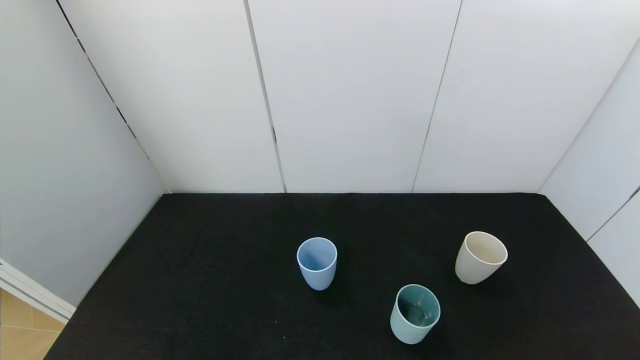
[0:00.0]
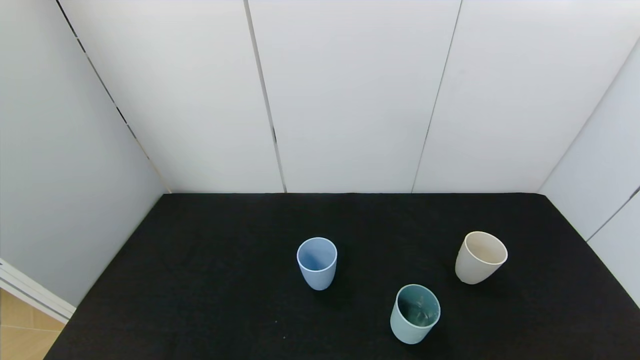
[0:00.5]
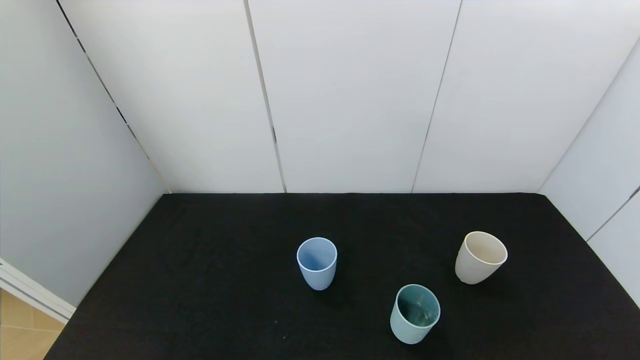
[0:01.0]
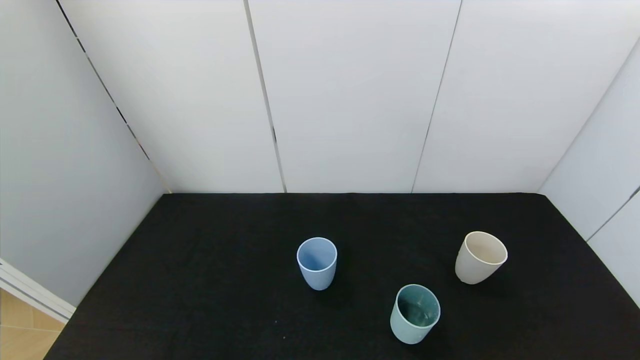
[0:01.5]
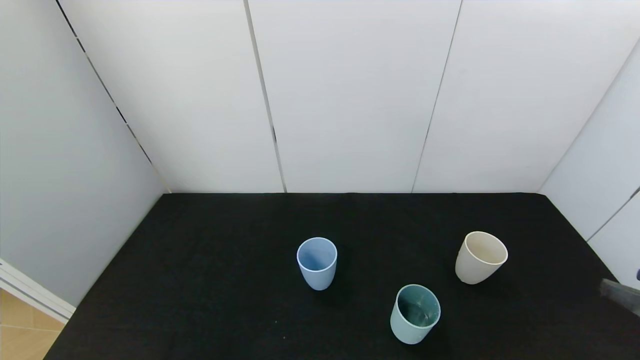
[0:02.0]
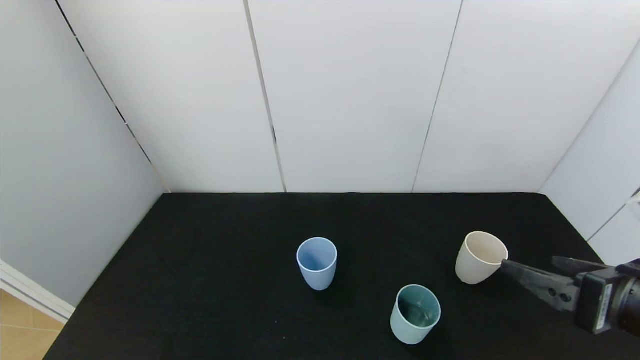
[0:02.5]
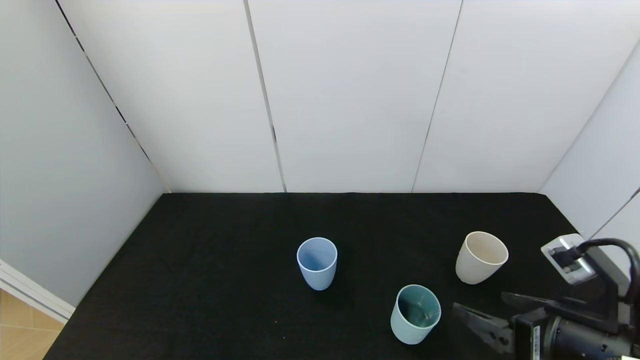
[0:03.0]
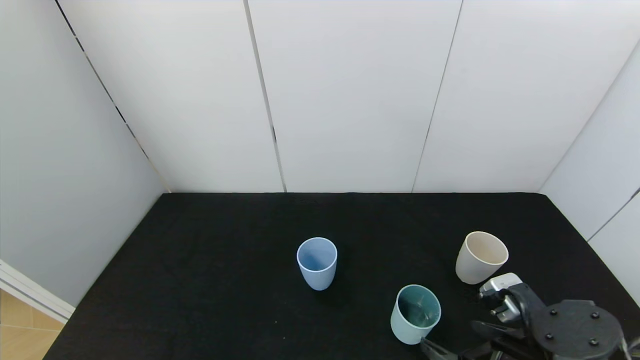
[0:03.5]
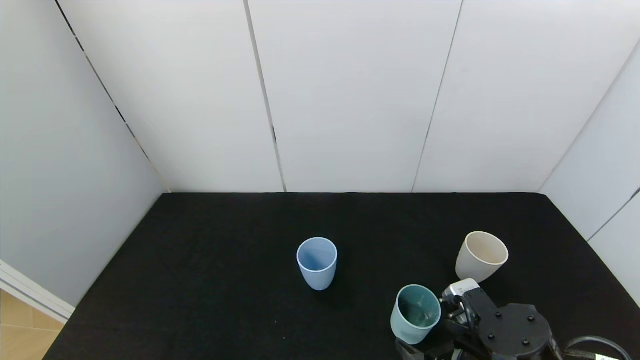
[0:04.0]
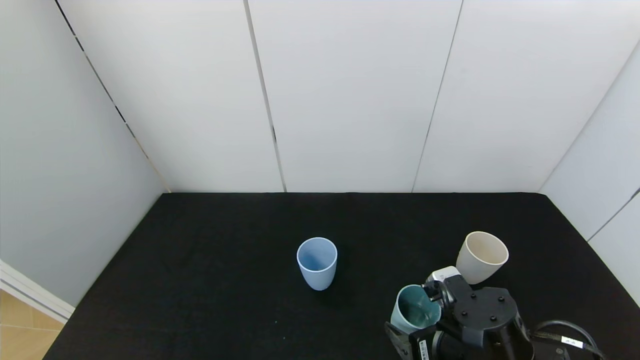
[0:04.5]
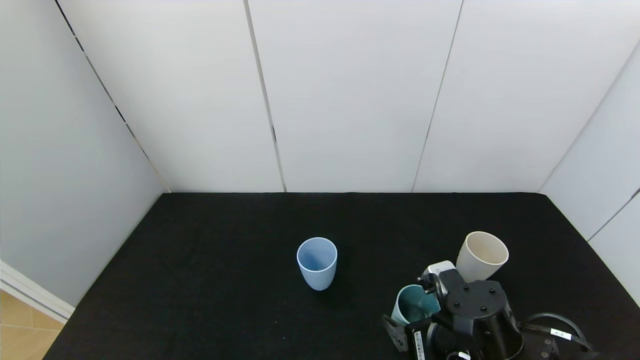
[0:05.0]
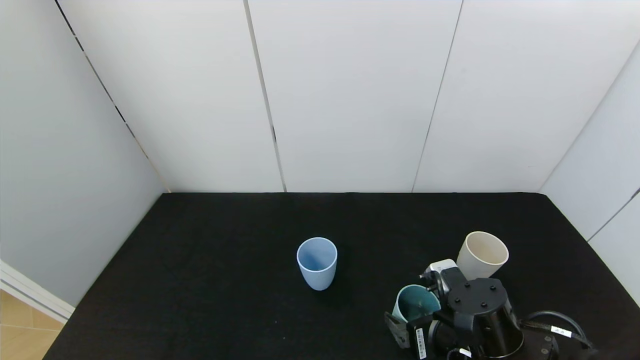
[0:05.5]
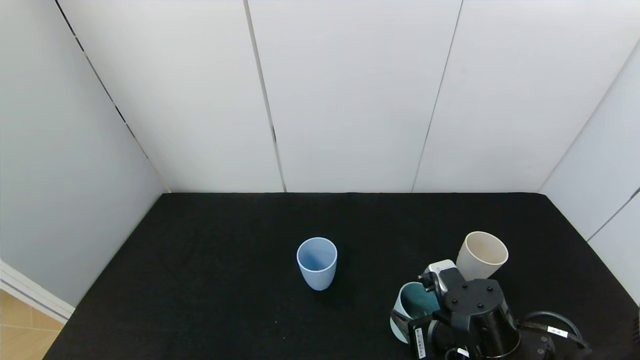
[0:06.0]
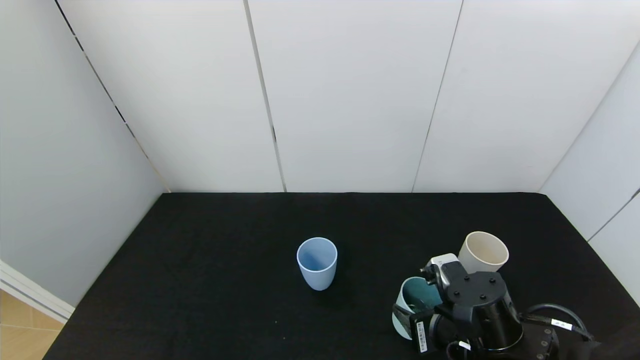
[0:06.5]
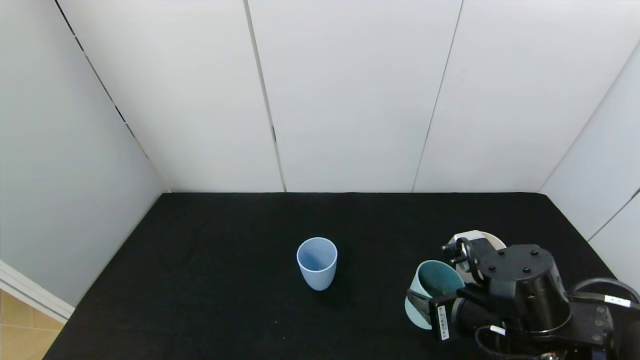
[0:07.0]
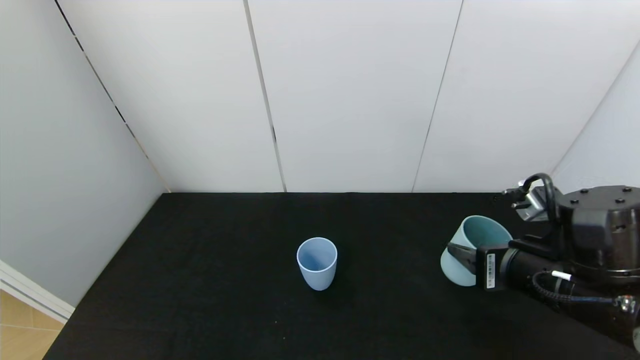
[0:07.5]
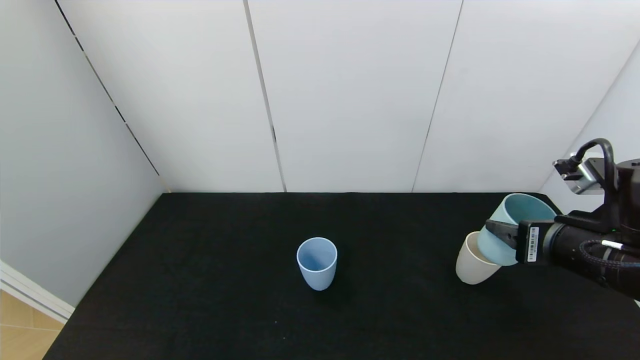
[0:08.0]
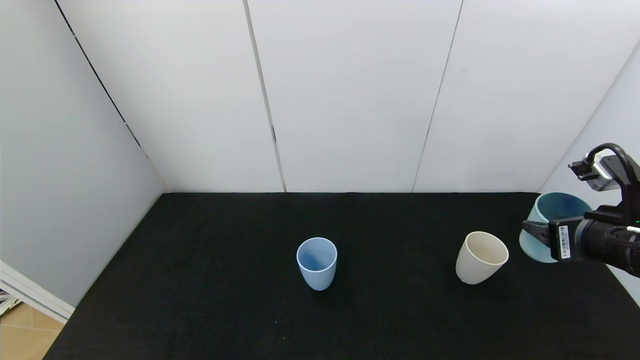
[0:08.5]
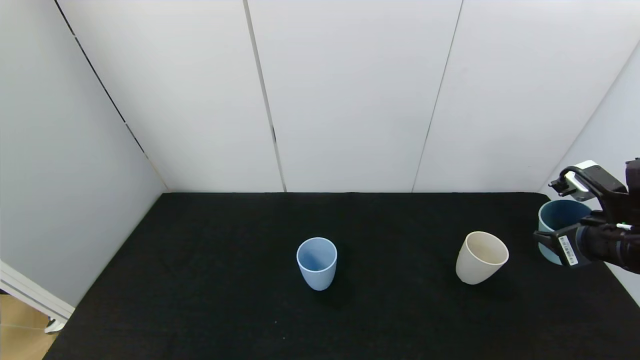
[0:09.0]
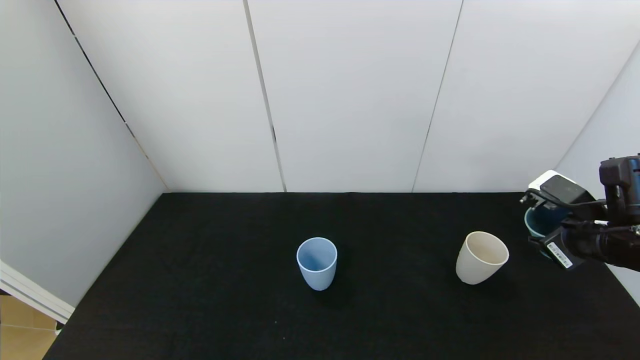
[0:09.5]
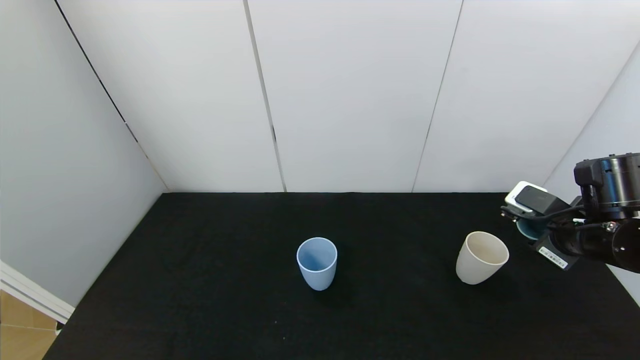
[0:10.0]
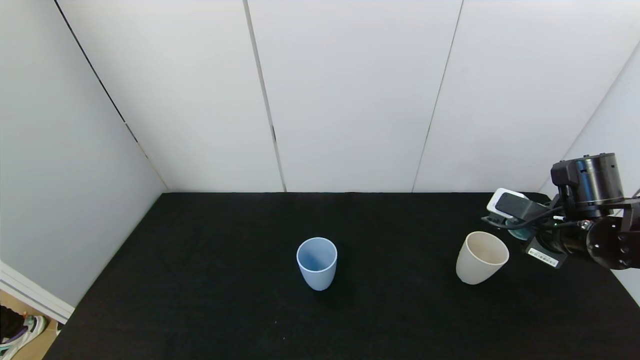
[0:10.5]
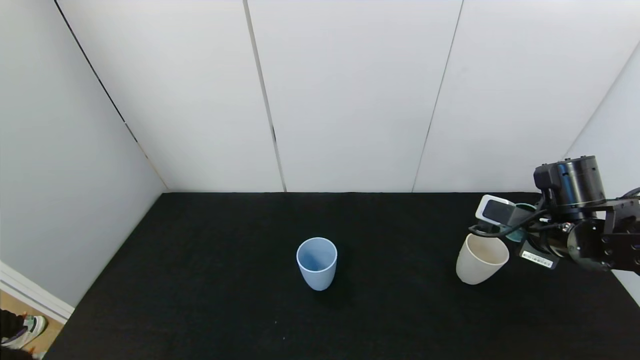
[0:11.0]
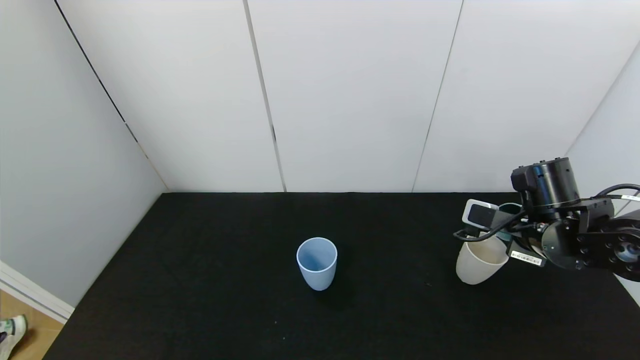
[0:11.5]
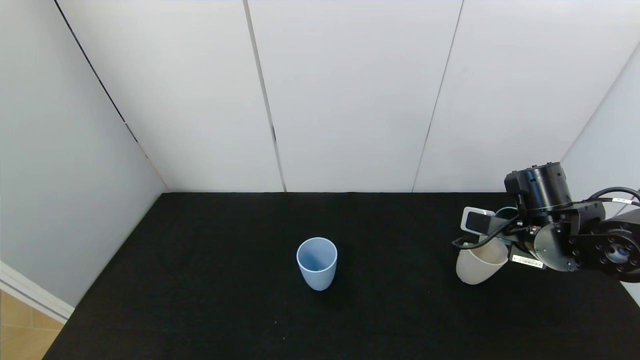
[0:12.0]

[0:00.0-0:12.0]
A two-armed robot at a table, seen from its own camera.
Task of the whole recording: use the gripper to pour the water into the other two cups on black table.
Step, 0:00.0 to 0:06.0: Grasp the green cup with the right gripper.
0:02.0 to 0:04.0: The right gripper travels to the left, downward and forward by roughly 25 cm.
0:04.0 to 0:06.0: The right gripper closes.
0:06.0 to 0:08.0: The right gripper moves upward and to the right, roughly 20 cm.
0:08.0 to 0:10.0: The right gripper goes some 10 cm forward and to the right.
0:10.0 to 0:12.0: The right gripper changes place by some 5 cm.

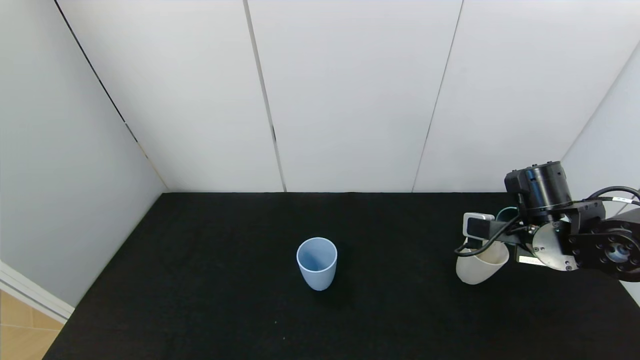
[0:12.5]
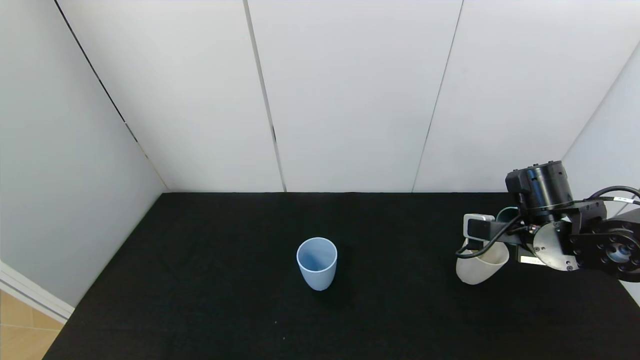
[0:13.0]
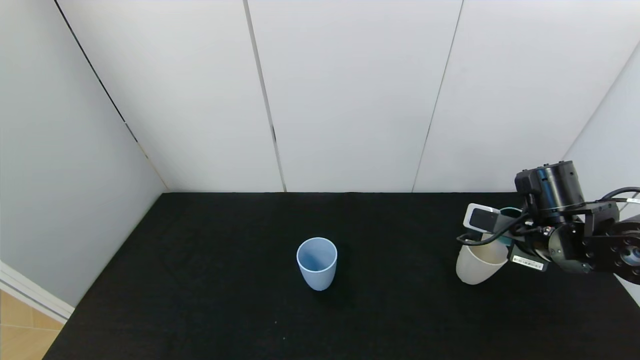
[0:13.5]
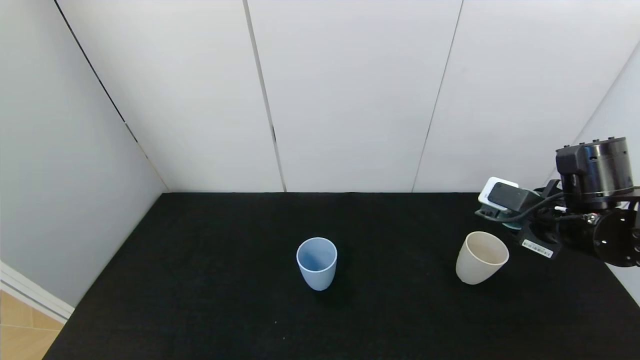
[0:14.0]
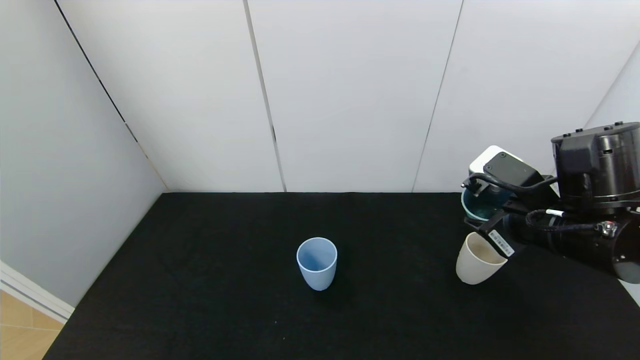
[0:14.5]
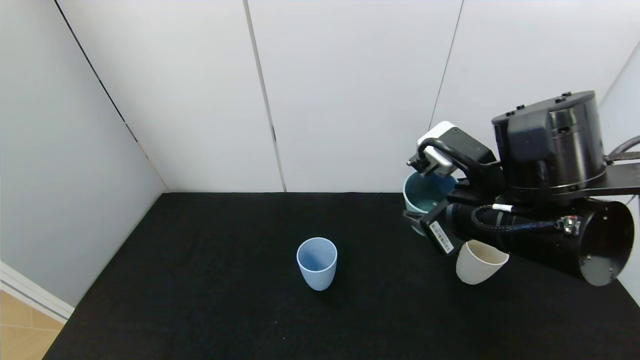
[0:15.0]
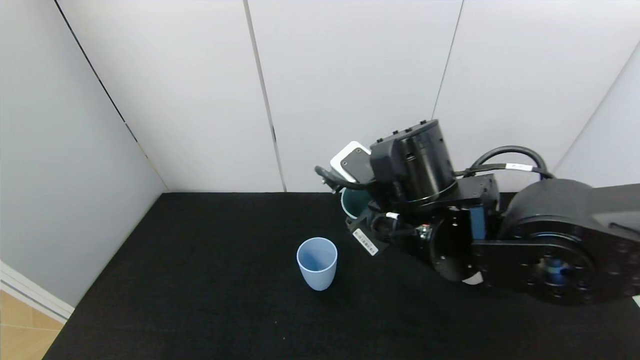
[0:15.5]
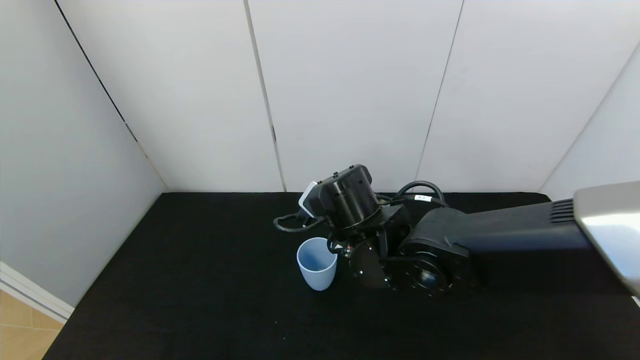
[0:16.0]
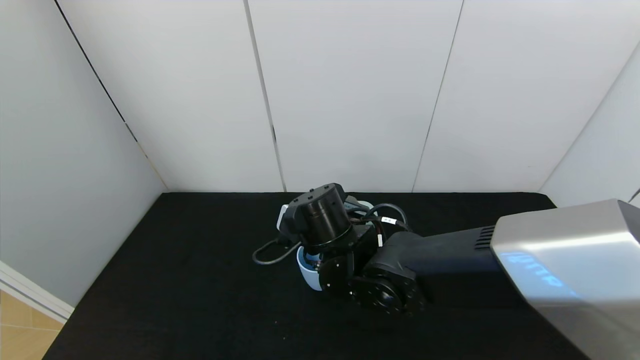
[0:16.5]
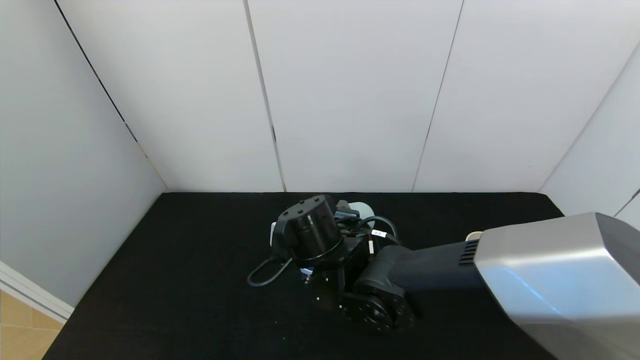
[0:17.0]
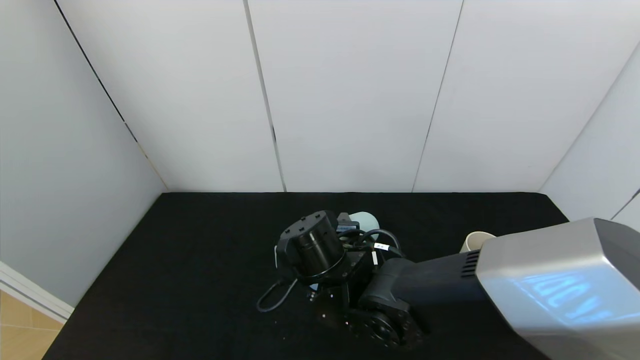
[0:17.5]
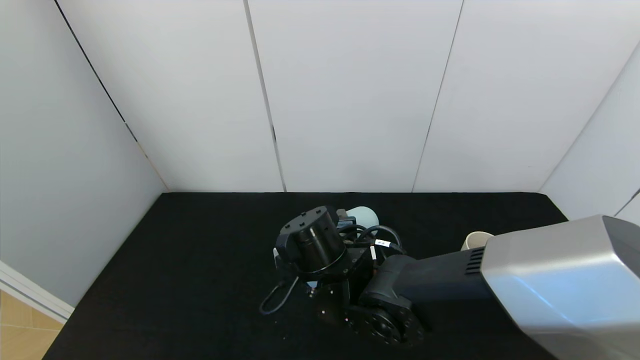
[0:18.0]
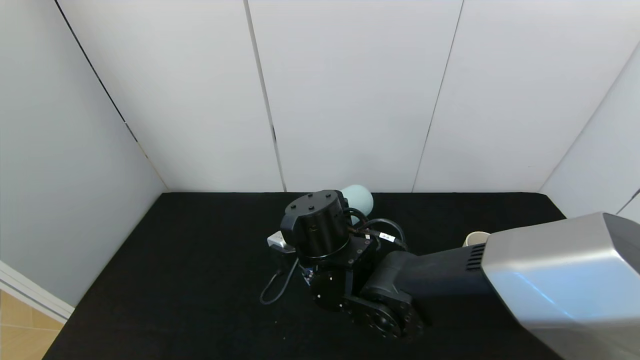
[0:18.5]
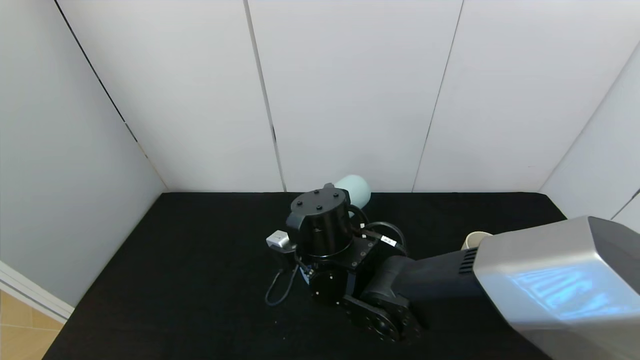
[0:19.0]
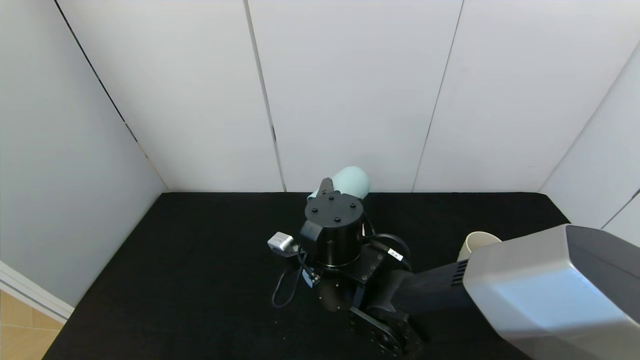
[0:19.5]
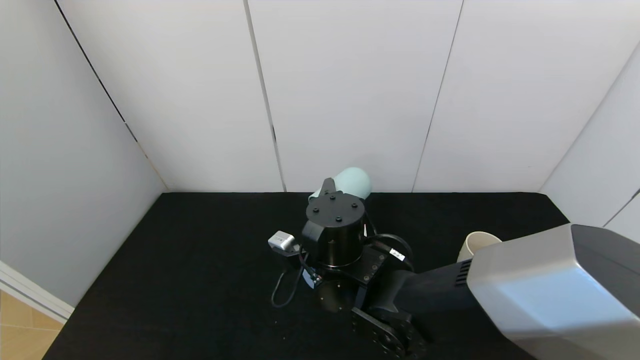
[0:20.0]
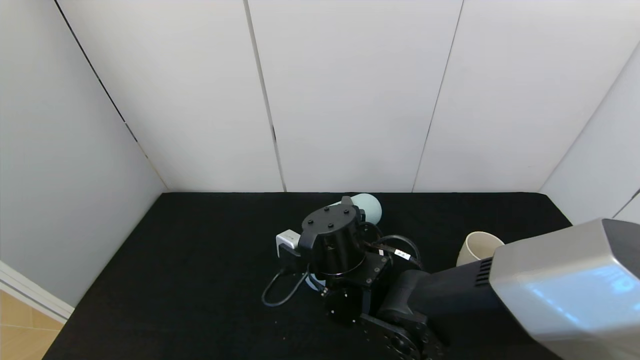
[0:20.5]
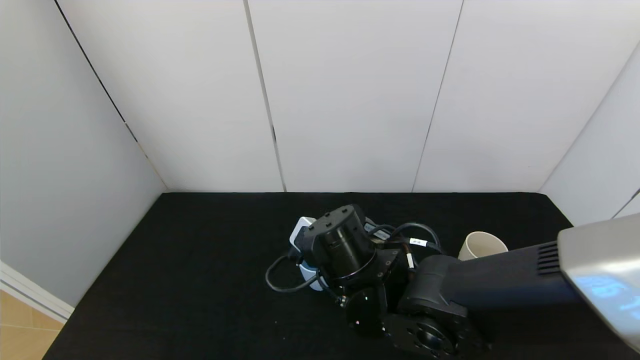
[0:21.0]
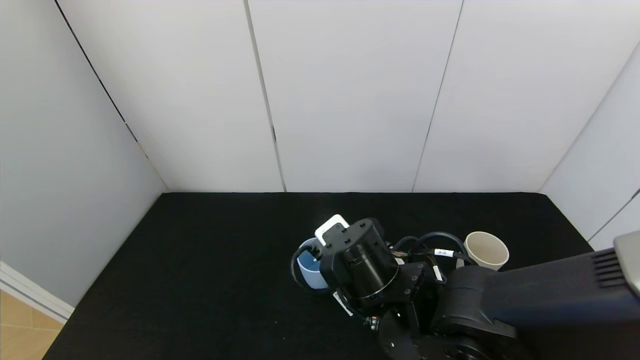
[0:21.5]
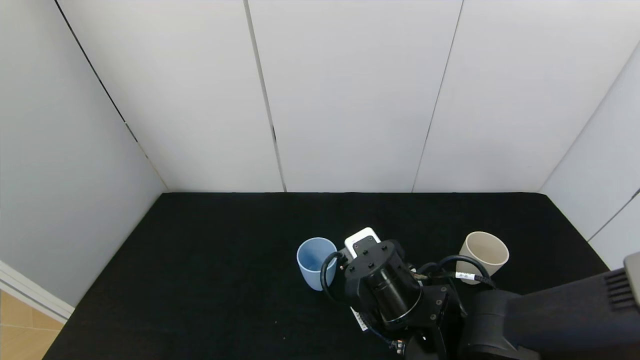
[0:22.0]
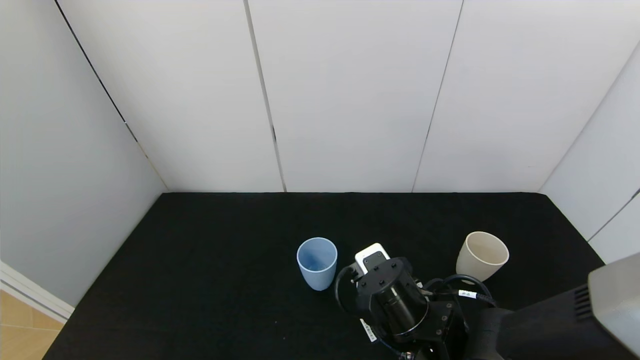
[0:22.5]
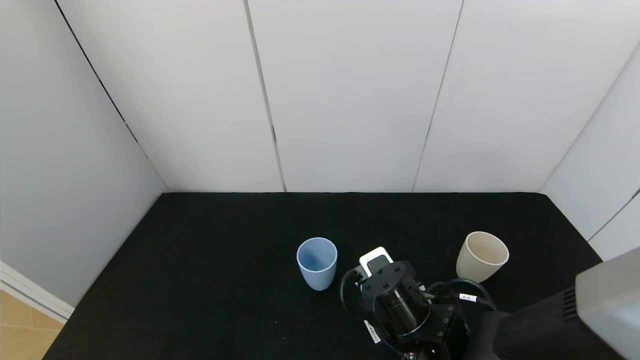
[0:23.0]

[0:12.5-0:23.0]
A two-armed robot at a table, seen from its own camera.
Task of the whole recording: use the gripper to pour the water into the other two cups on black table.
Step, 0:14.5 to 0:21.0: Pour water from green cup to blue cup with the right gripper.
0:12.5 to 0:14.5: The right gripper travels upward and backward by some 10 cm.
0:14.5 to 0:16.5: The right gripper shifts approximately 25 cm to the left.
0:19.0 to 0:21.0: The right gripper changes place by approximately 5 cm.
0:21.0 to 0:23.0: The right gripper shifts roughly 10 cm downward and to the right.
